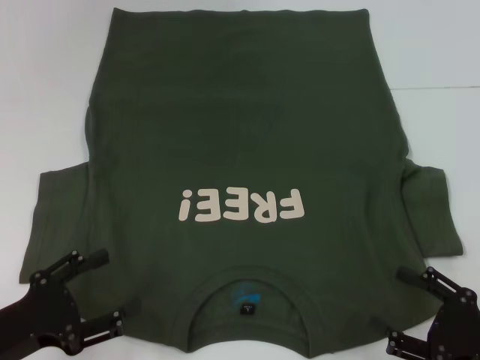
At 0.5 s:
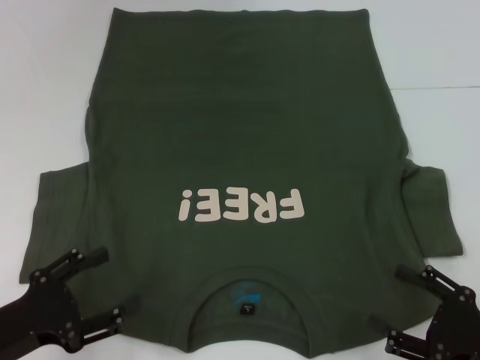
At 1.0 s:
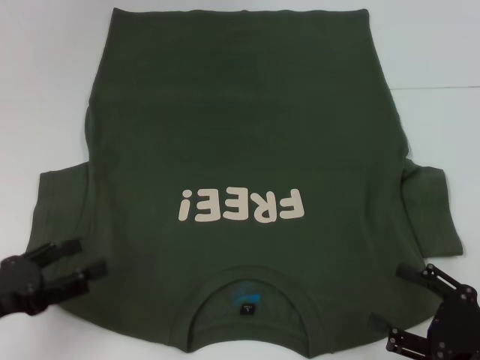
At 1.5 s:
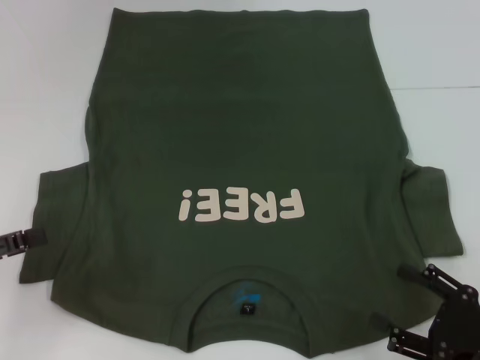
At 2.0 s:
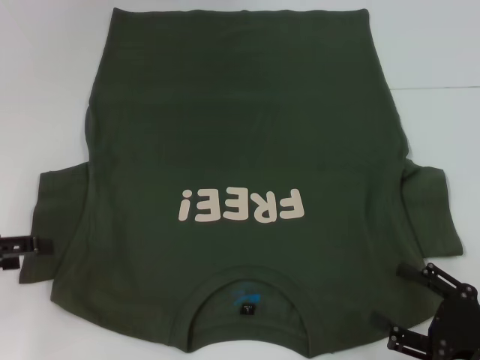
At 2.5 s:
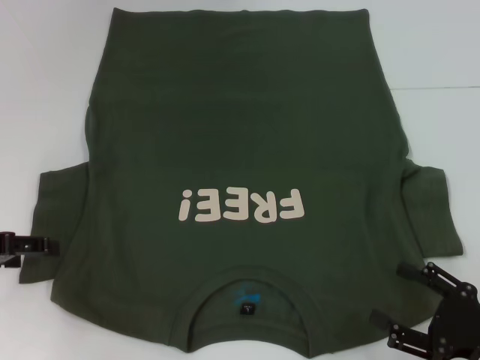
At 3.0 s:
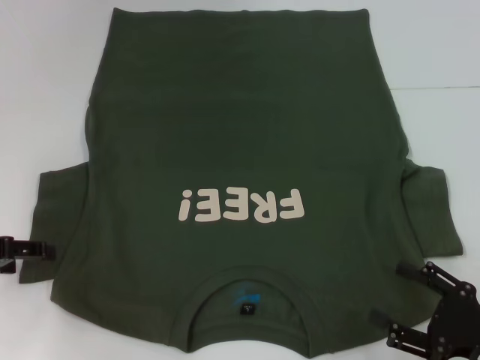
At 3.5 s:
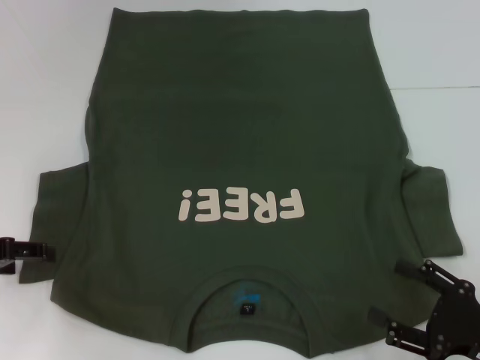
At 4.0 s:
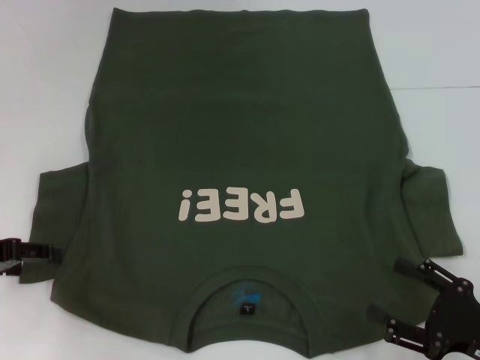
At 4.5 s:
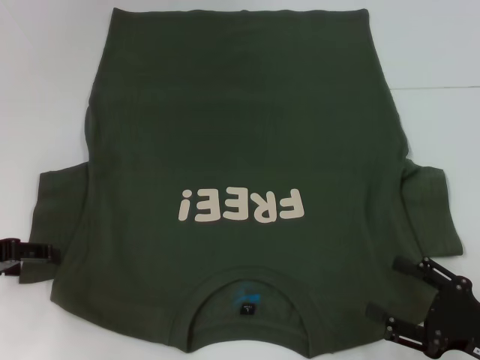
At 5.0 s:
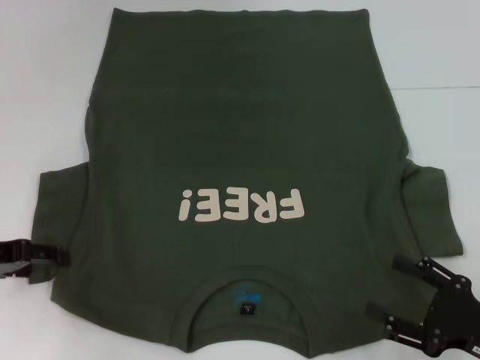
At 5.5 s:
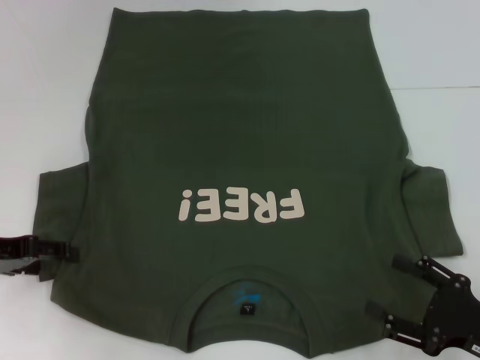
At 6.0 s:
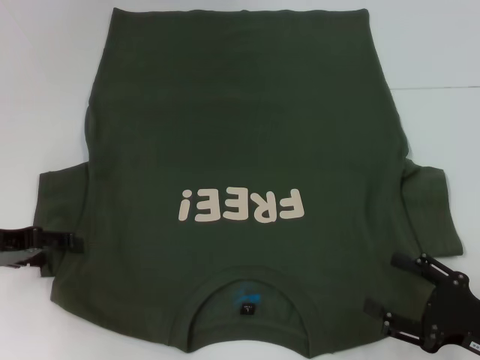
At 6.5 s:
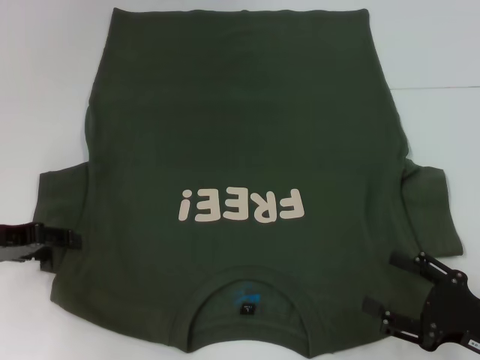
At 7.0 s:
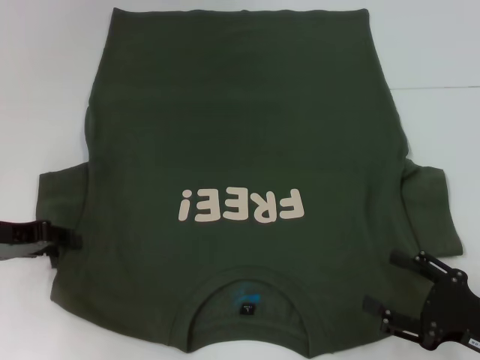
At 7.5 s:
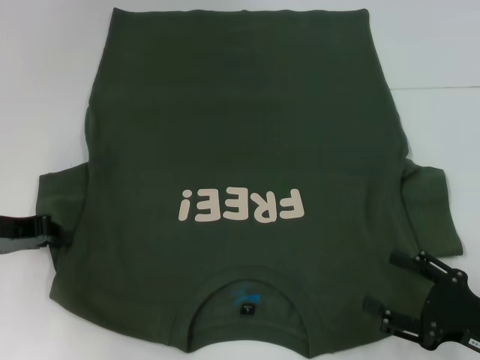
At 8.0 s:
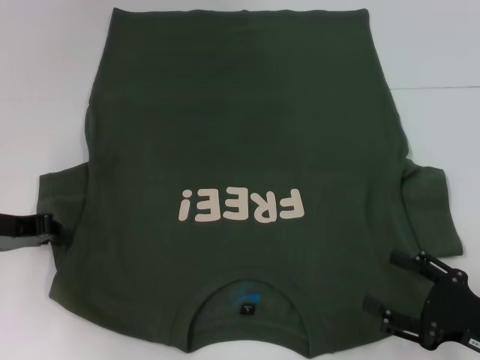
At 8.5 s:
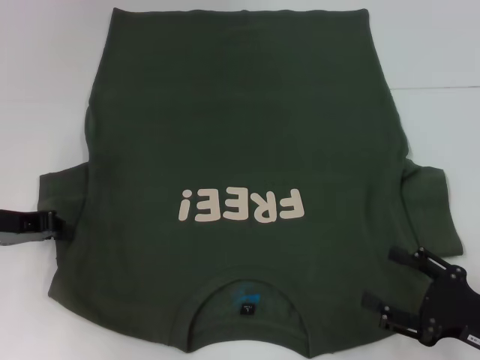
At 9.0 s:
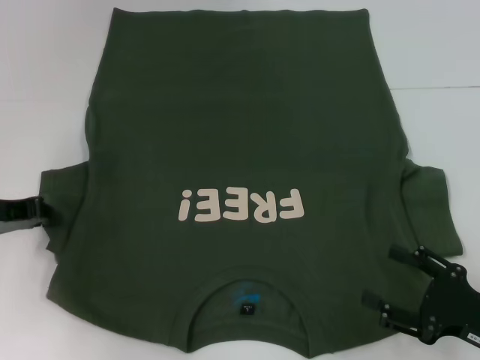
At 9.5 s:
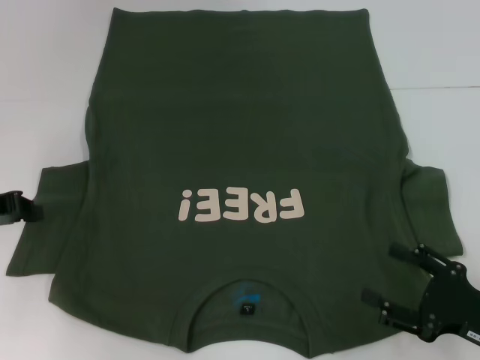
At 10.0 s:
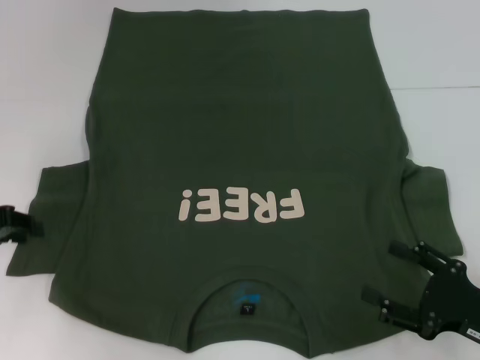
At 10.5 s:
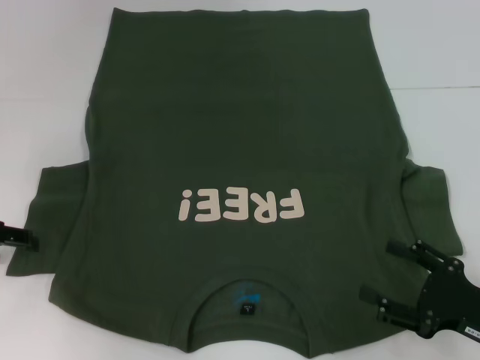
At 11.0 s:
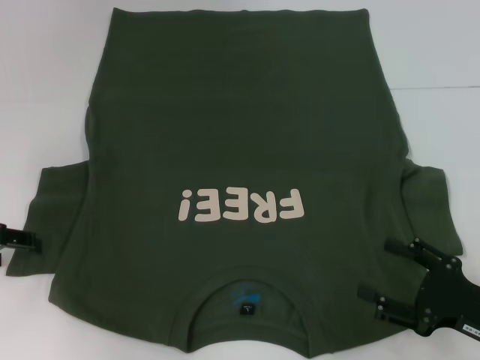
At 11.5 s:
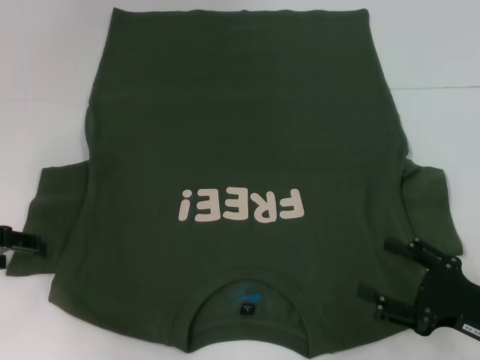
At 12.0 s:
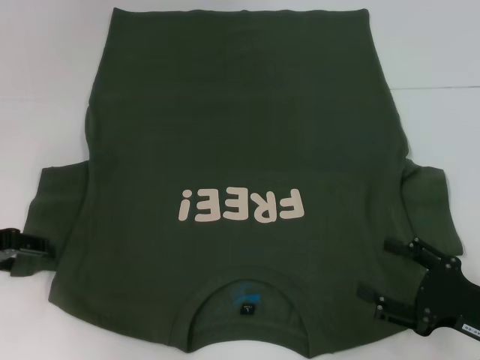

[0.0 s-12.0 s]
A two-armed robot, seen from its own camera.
0.0 to 2.0 s: The left gripper goes approximately 15 cm forward, upward and to the left.
2.0 to 6.0 s: The grippers make only small movements.
6.0 to 8.0 s: The left gripper closes its fingers.
8.0 to 10.0 s: The grippers move only a little.
10.0 to 12.0 s: The left gripper opens its fingers.

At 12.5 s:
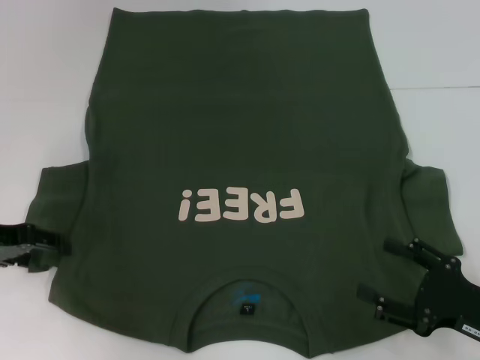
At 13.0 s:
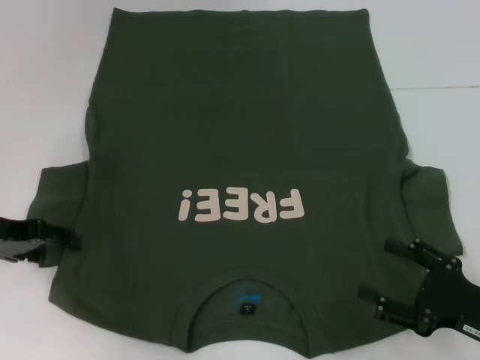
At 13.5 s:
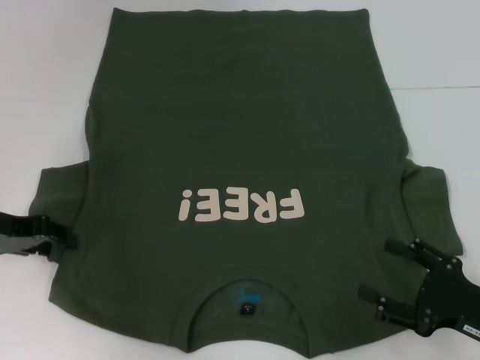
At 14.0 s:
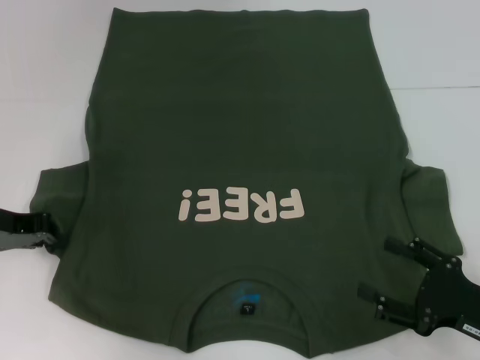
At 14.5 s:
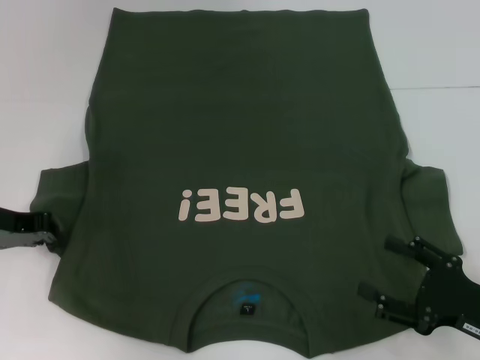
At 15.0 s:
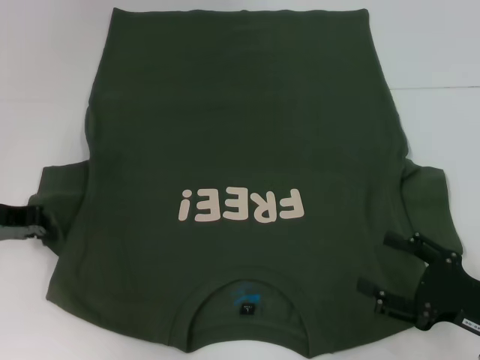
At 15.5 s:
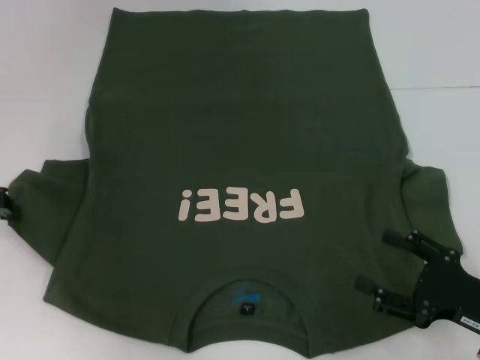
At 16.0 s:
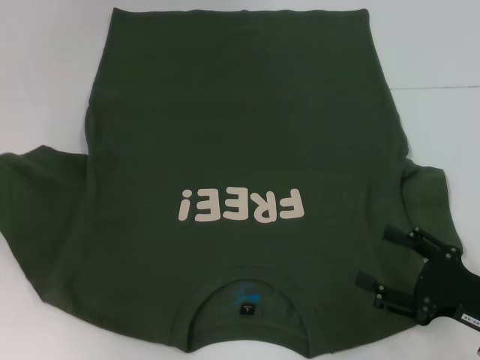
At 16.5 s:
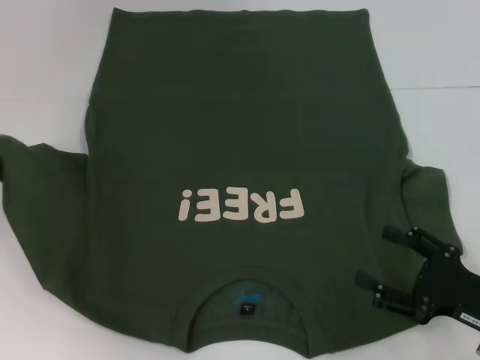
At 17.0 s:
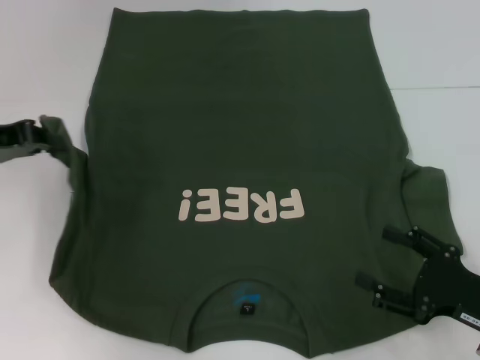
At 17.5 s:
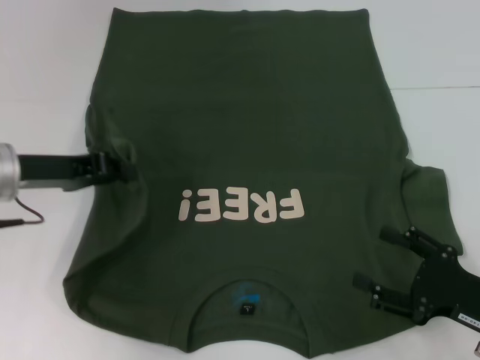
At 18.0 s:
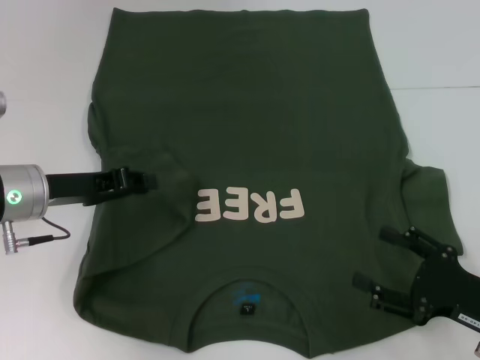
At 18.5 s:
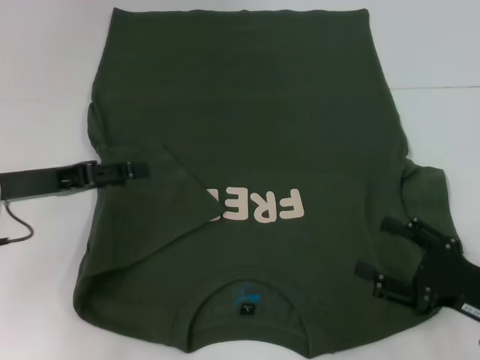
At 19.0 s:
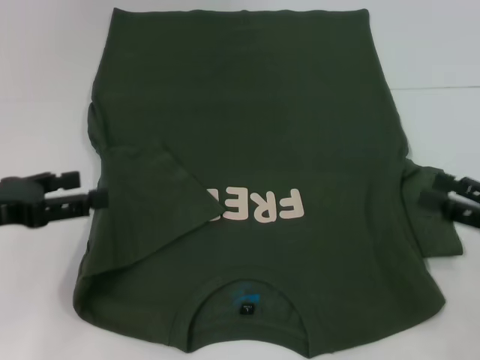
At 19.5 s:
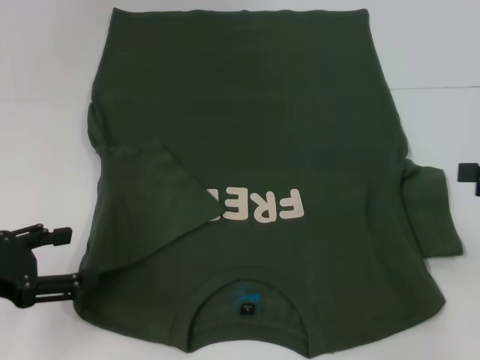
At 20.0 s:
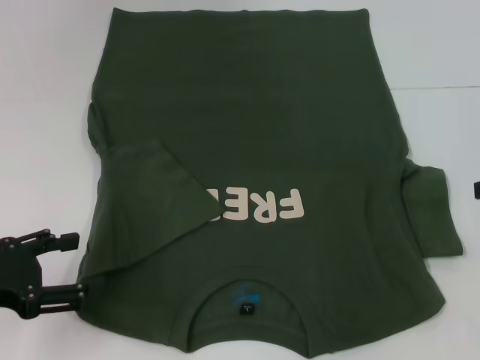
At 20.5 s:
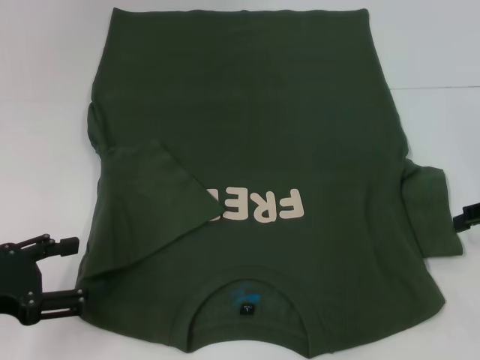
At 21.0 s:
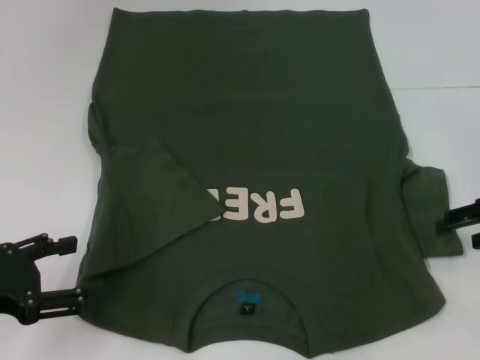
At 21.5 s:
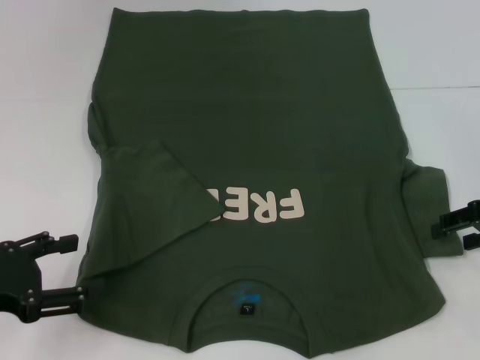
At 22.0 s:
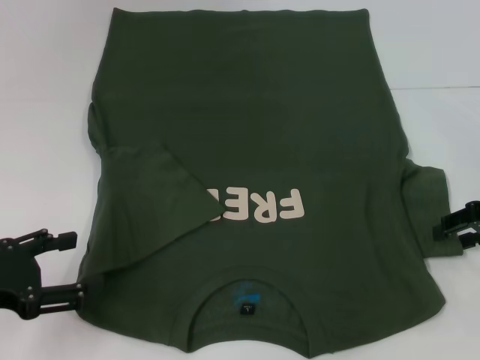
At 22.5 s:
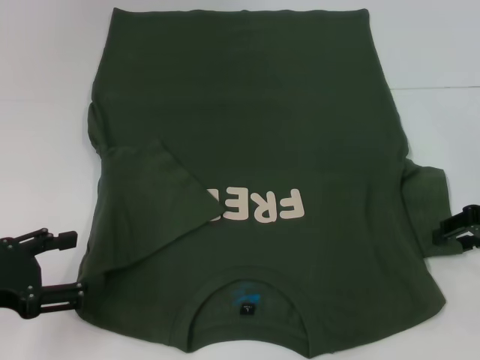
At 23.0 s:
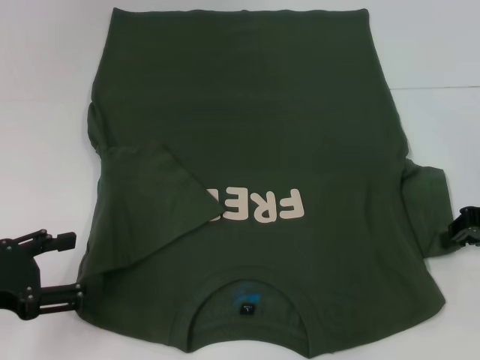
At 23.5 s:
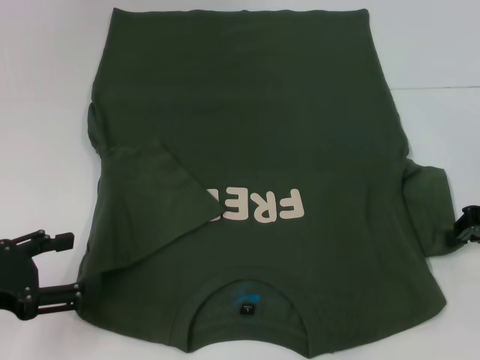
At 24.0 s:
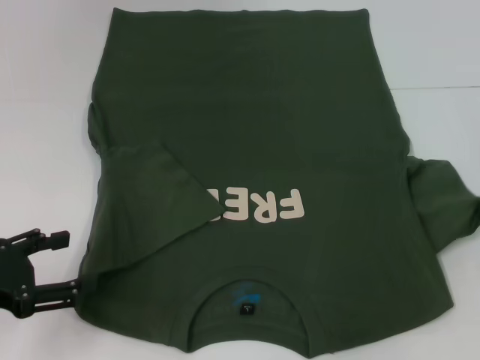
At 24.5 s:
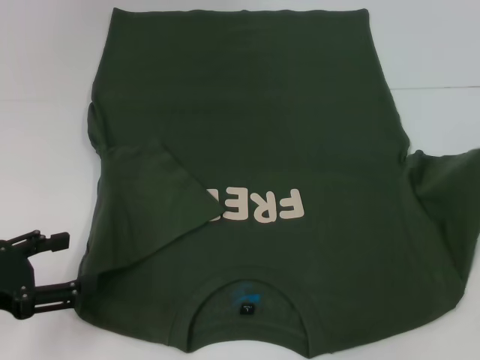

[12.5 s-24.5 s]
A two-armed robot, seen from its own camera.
Step, 12.5 to 18.0 s: Fold the bottom left sleeve with your left hand.
12.5 to 14.5 s: The left gripper closes its fingers.
14.5 to 16.5 s: The left gripper goes roughly 5 cm upward.
16.5 to 18.5 s: The left gripper shifts approximately 10 cm to the right, and opens.
18.5 to 20.5 s: The right gripper moves forward, upward and to the right, some 20 cm. The left gripper goes some 10 cm backward, and opens its fingers.
20.5 to 22.5 s: The grippers move only a little.
22.5 to 24.5 s: The right gripper heads to the right, covering about 5 cm, and closes its fingers.

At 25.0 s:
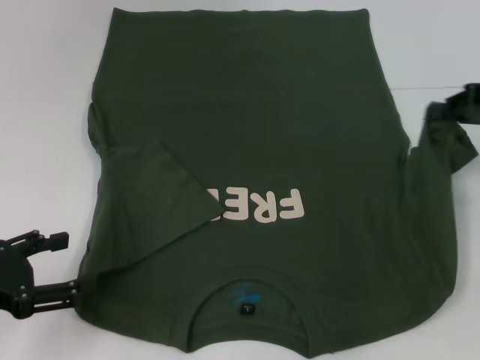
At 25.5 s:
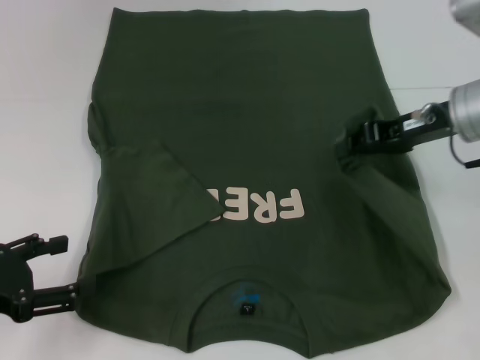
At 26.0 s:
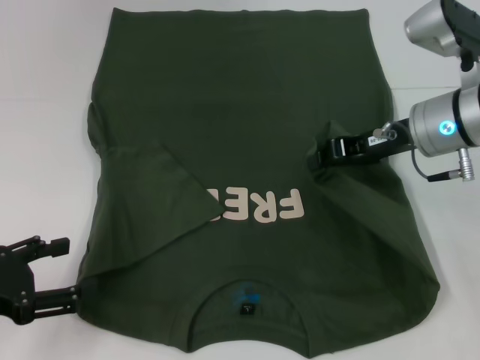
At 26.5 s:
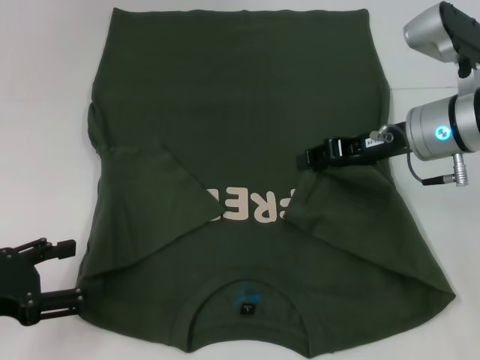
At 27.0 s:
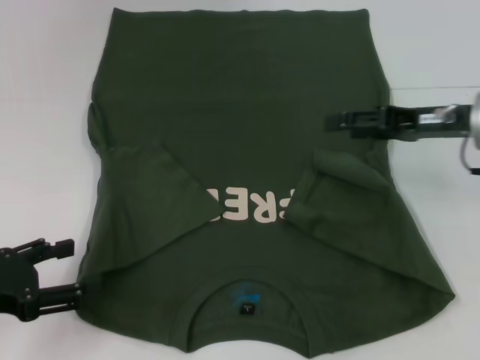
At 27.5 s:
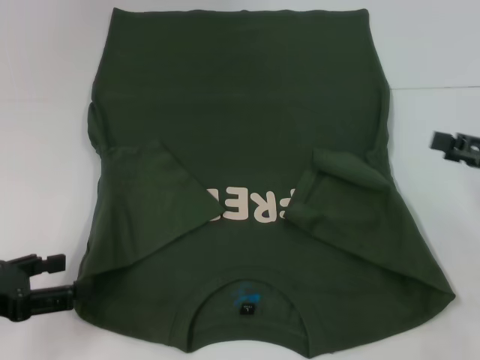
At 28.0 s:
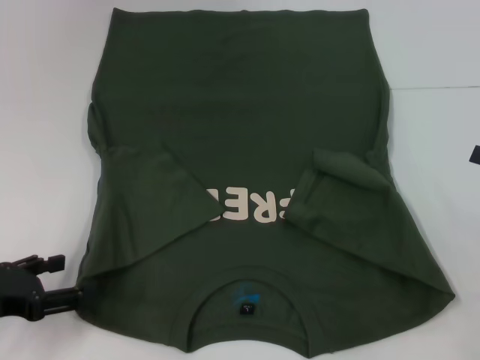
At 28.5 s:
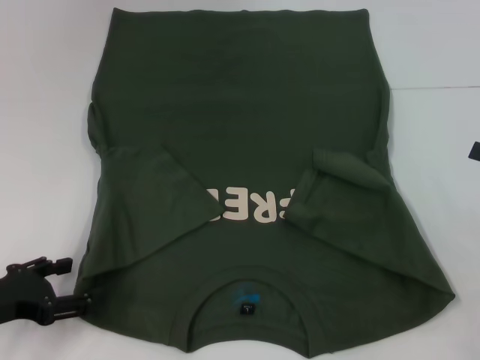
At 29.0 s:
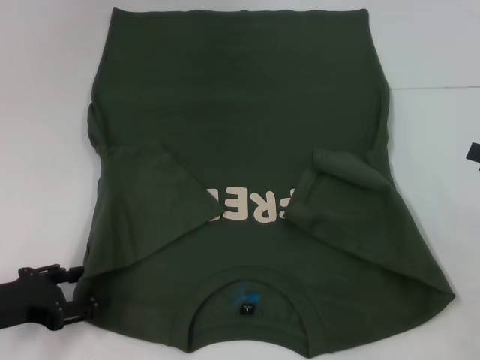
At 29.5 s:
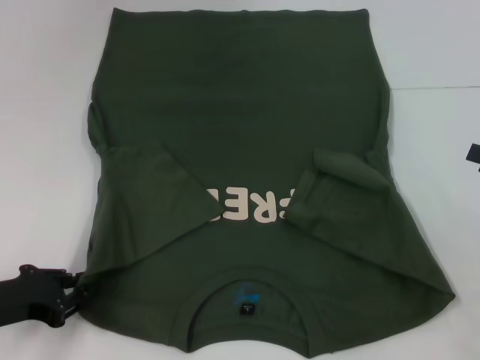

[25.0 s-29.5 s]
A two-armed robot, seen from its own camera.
25.0 to 27.0 s: The right gripper travels to the left by some 5 cm, and opens up.
27.0 to 29.5 s: The left gripper changes place by approximately 5 cm, and closes up. Meanwhile the right gripper goes approximately 15 cm to the right and backward.
